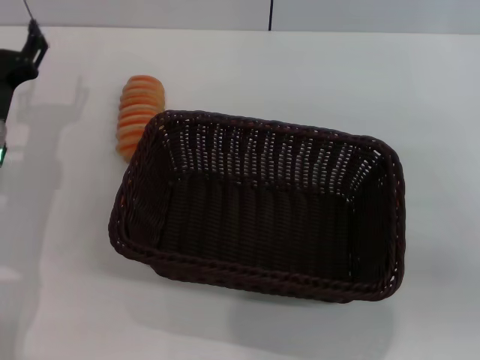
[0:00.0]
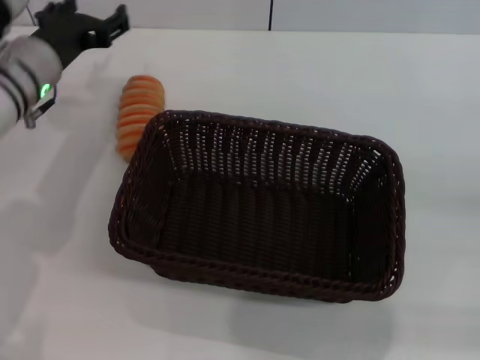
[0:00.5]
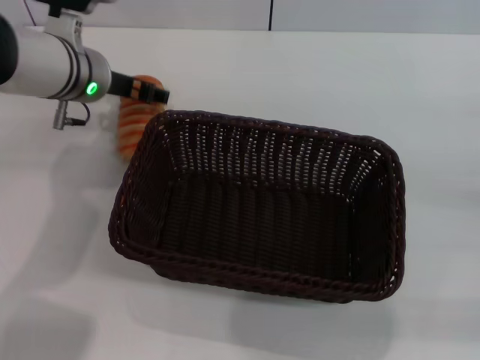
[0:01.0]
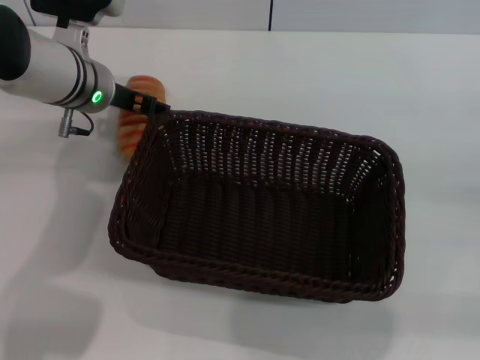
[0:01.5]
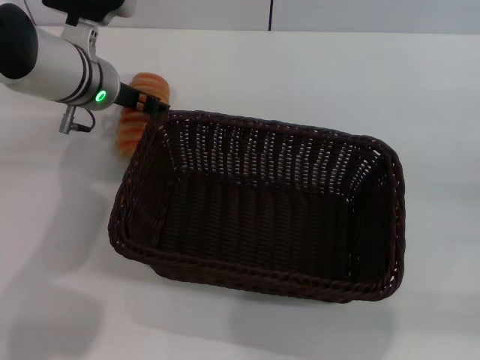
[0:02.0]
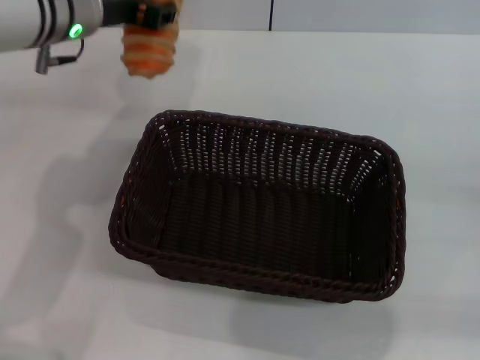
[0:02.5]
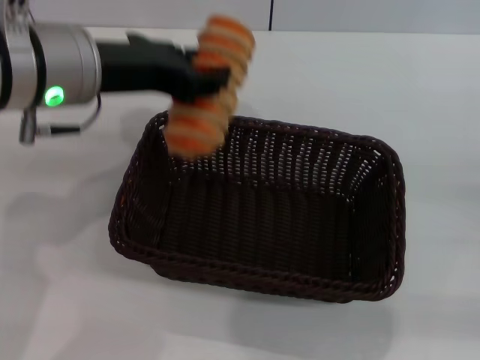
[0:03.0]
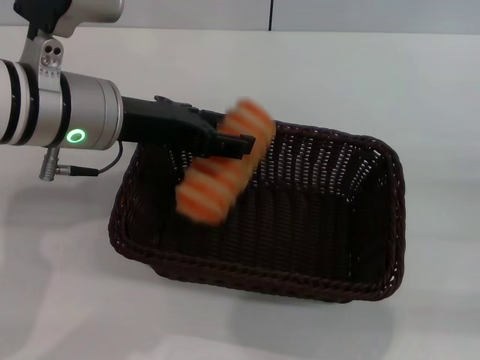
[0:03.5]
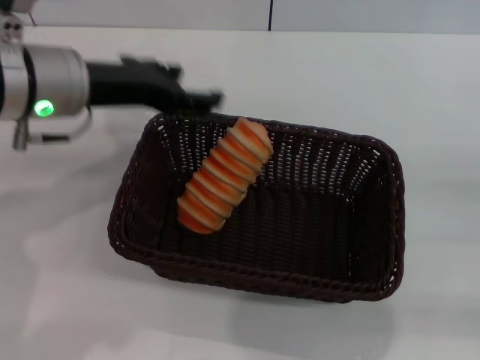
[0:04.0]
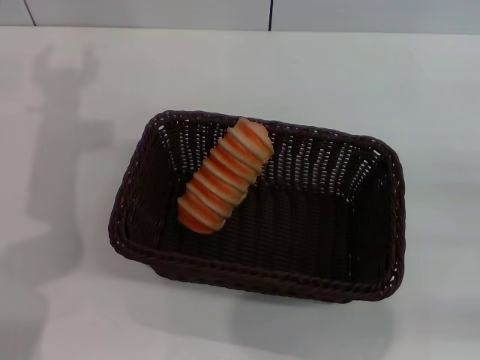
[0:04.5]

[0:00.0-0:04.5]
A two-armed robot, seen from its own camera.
Step, 0:00.0 to 0:02.0: Pick up the long bread with the left gripper.
Step, 0:02.5 to 0:03.5: Place the long bread into the dark basket with the left gripper.
0:00.0 to 0:02.0: The left gripper heads to the right, forward and upward, covering about 15 cm, and closes up, while the right gripper goes approximately 10 cm to the right and downward.
0:02.0 to 0:04.5: The left gripper shifts approximately 10 cm to the left and backward, and closes, then opens again.
